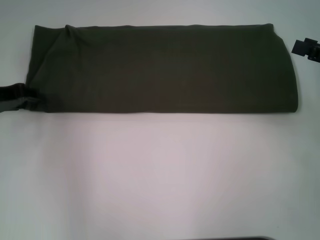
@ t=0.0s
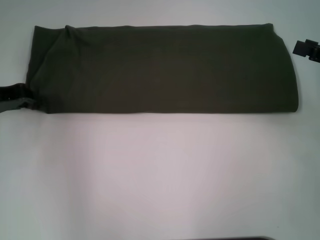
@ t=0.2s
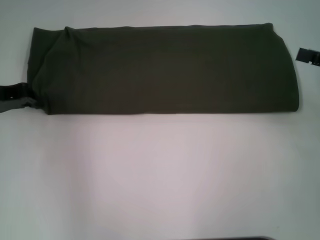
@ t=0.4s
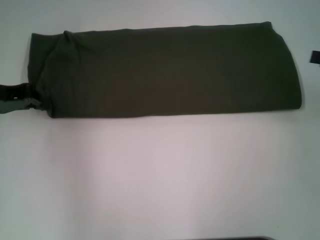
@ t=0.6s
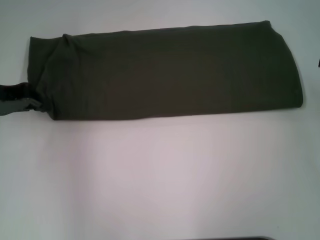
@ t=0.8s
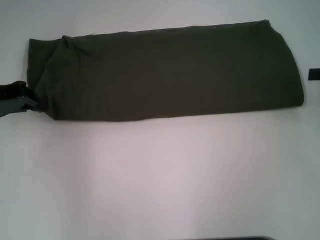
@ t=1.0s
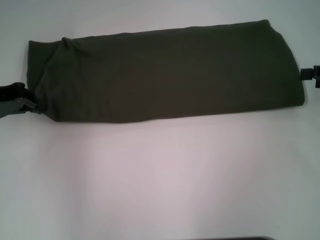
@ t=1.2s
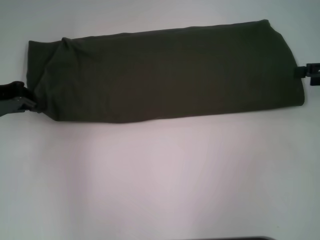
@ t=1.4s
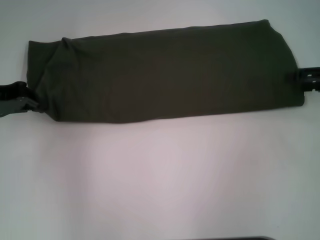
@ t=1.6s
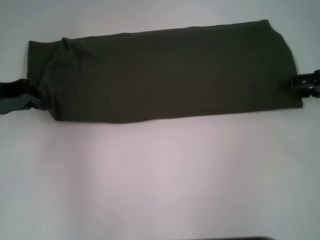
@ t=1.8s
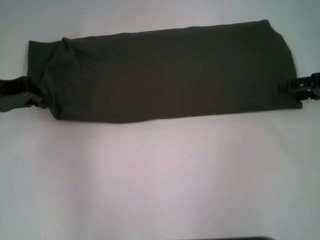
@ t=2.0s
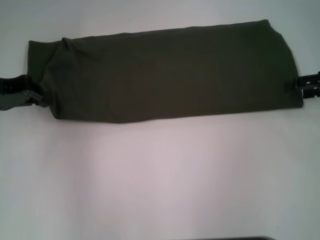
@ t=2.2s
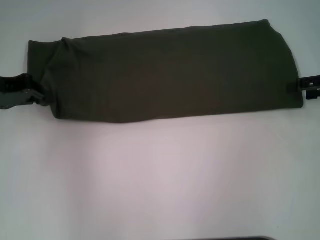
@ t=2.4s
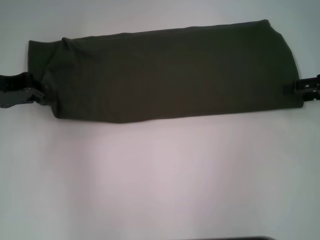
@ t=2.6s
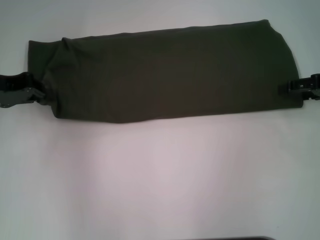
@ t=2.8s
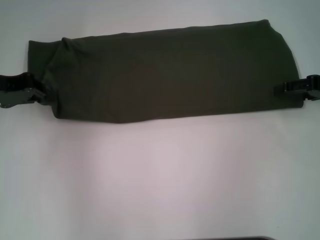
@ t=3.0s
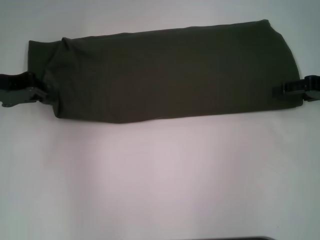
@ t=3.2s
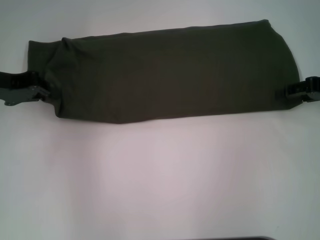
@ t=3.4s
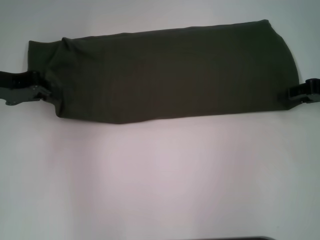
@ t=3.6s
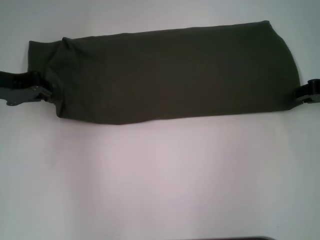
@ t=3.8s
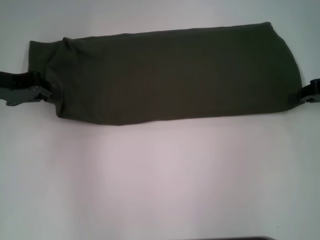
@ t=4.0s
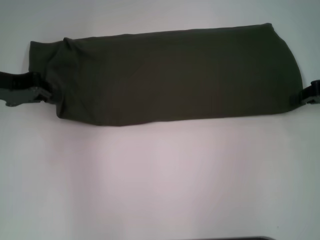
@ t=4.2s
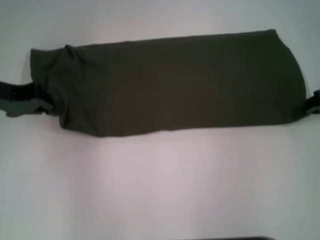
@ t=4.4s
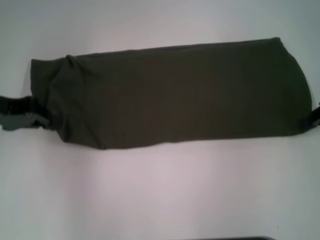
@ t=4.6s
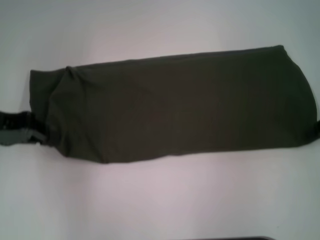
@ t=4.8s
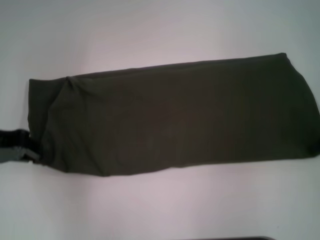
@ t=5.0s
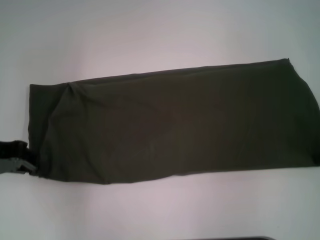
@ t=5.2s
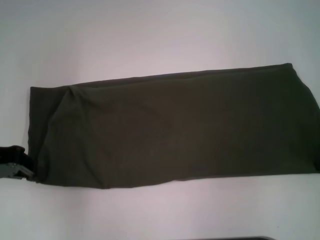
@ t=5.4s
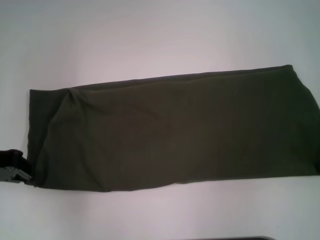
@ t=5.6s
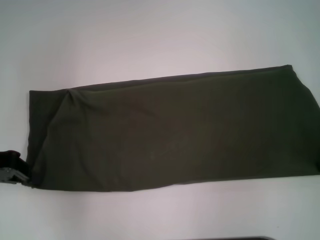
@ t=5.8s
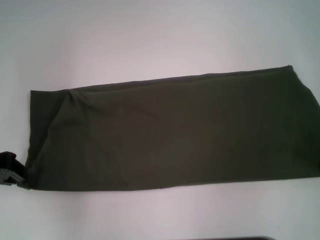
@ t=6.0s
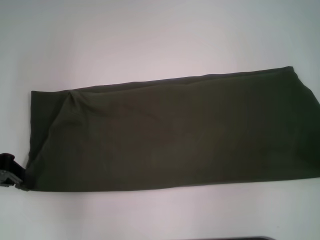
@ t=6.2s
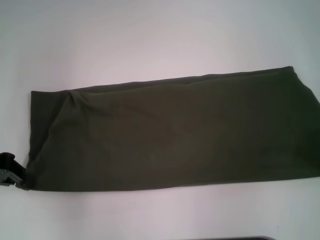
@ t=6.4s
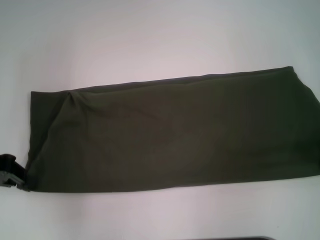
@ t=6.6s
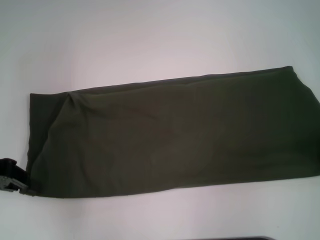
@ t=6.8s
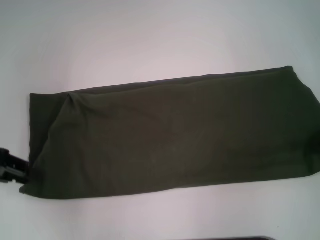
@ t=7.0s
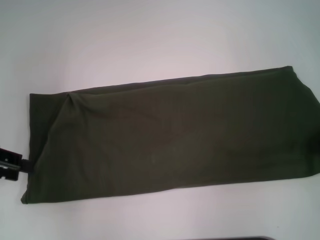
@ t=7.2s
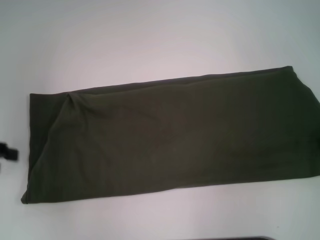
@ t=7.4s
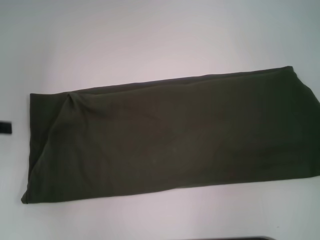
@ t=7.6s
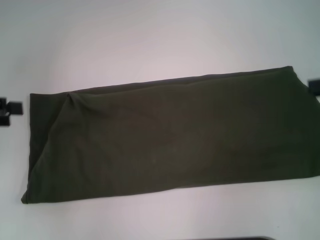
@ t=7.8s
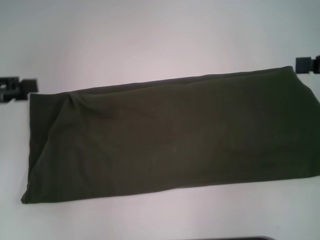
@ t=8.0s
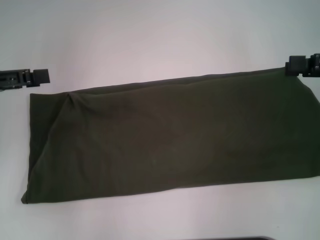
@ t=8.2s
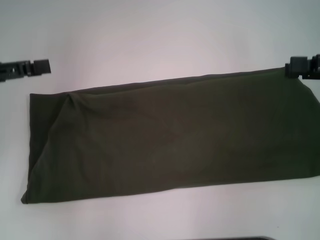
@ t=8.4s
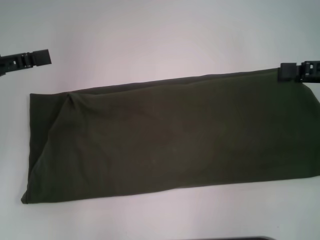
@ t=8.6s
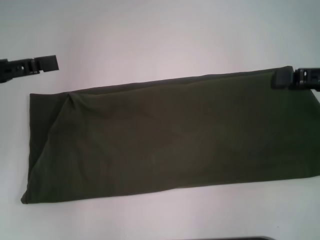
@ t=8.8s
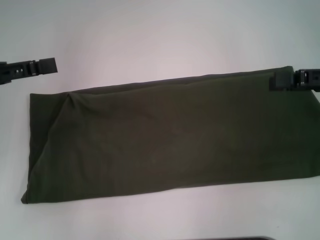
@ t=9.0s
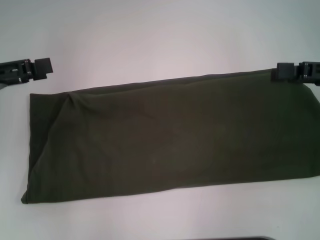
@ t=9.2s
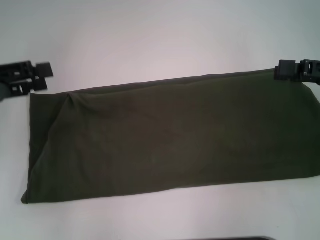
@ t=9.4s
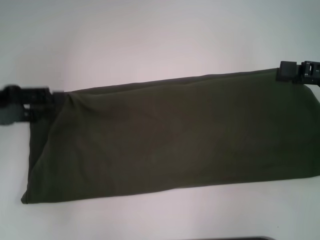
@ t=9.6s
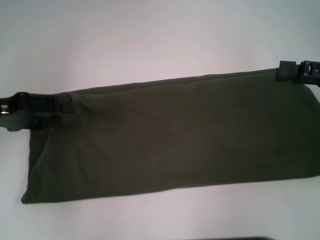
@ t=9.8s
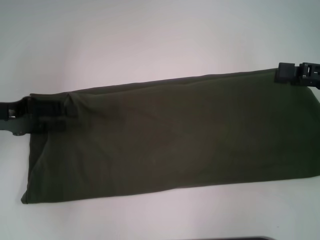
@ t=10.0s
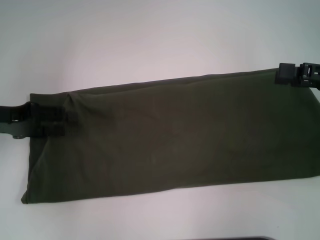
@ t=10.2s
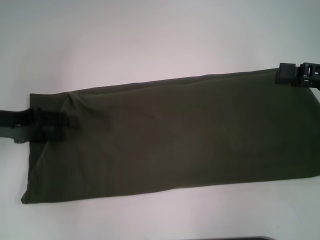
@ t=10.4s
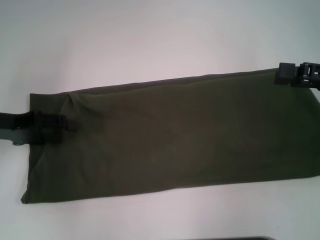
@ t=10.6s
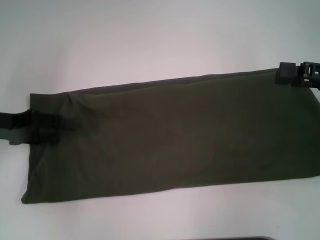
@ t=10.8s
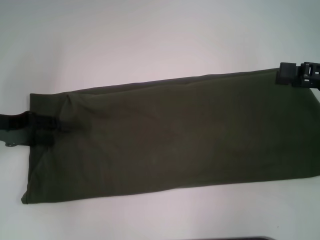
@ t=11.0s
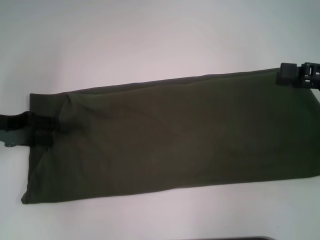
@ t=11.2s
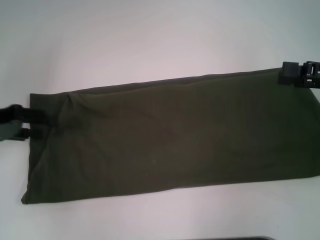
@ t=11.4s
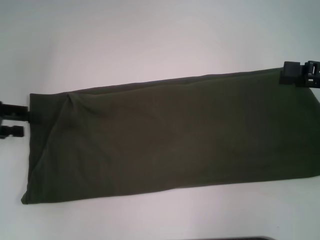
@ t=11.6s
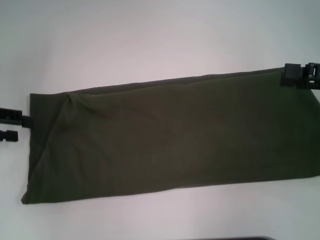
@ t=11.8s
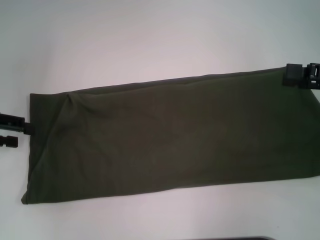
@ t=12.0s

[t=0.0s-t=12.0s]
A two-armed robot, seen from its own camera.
Step, t=0.0s to t=7.0s: Pull the clothes with your left hand.
Step, t=0.0s to t=7.0s: Pull the clothes with your right hand.
t=0.0s to t=1.6s: The right gripper goes some 5 cm forward. Meanwhile the left gripper closes.
t=1.6s to t=3.0s: The grippers make only small movements.
t=3.0s to t=4.4s: The right gripper closes up.
t=4.4s to t=6.0s: The left gripper moves backward, approximately 5 cm.
t=6.0s to t=7.6s: The right gripper moves some 5 cm, and opens up; the left gripper travels to the left by approximately 5 cm, and opens its fingers.
t=7.6s to t=9.0s: The right gripper travels to the left by roughly 5 cm. The left gripper moves some 5 cm.
t=9.0s to t=10.4s: The left gripper shifts about 5 cm downward.
t=10.4s to t=12.0s: The left gripper moves roughly 5 cm.

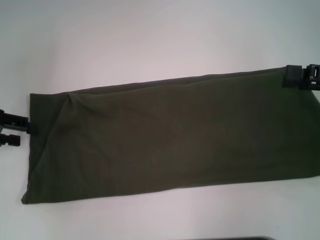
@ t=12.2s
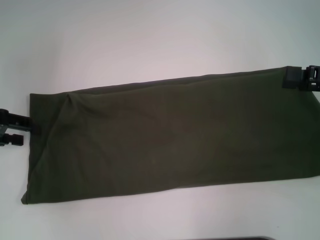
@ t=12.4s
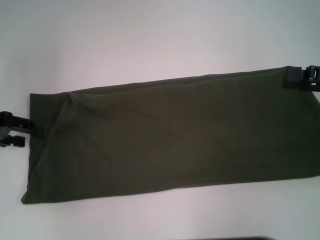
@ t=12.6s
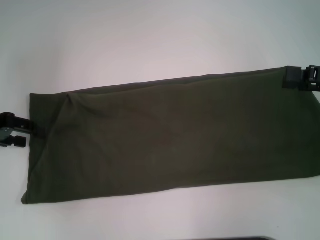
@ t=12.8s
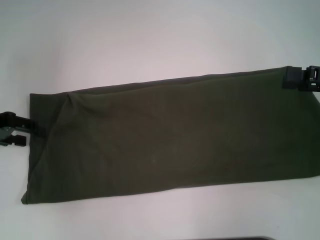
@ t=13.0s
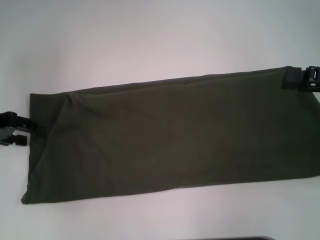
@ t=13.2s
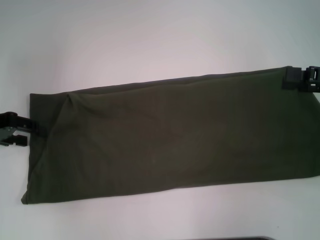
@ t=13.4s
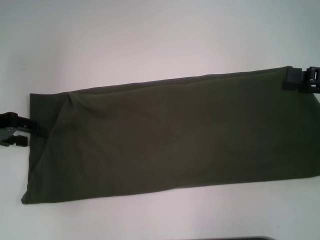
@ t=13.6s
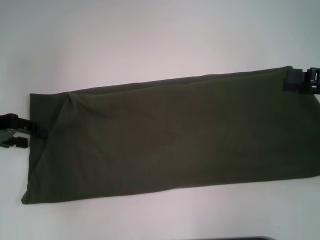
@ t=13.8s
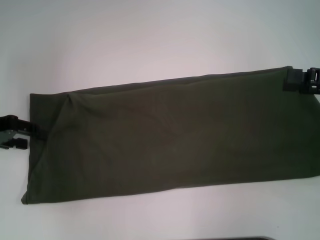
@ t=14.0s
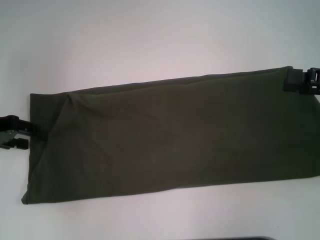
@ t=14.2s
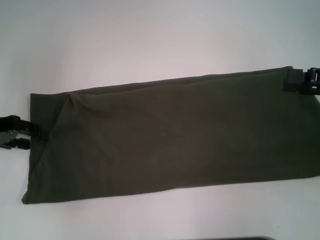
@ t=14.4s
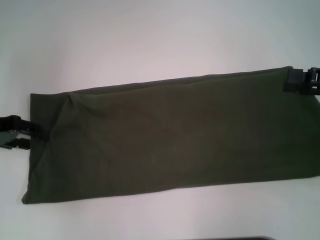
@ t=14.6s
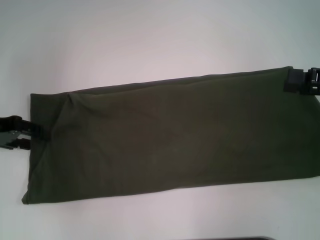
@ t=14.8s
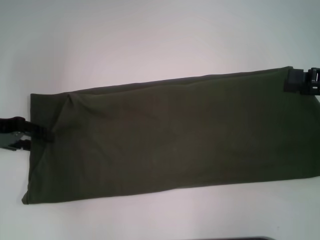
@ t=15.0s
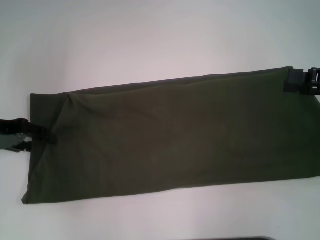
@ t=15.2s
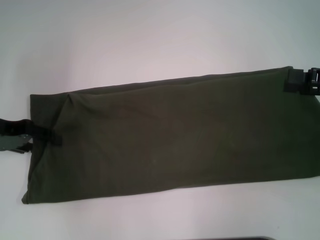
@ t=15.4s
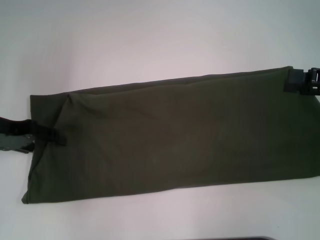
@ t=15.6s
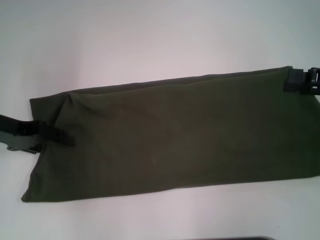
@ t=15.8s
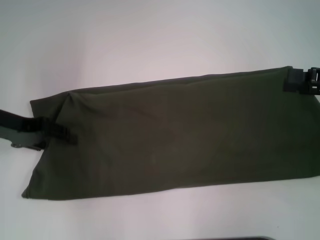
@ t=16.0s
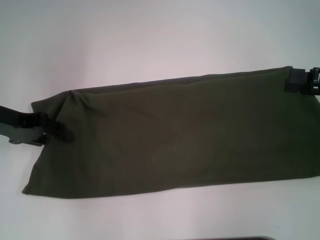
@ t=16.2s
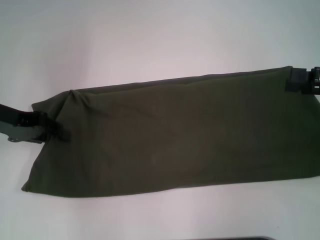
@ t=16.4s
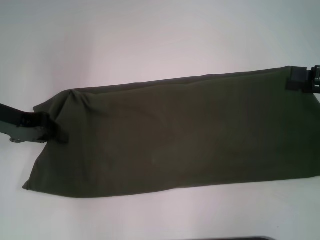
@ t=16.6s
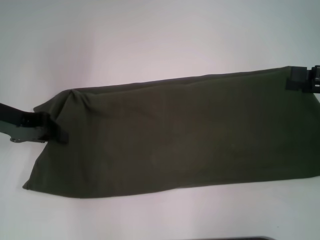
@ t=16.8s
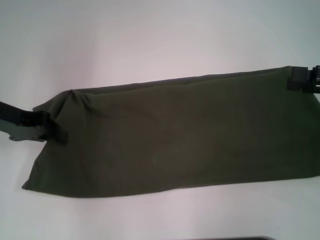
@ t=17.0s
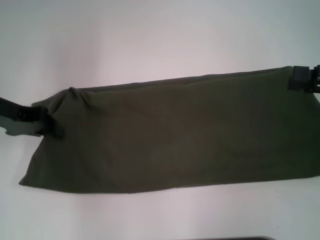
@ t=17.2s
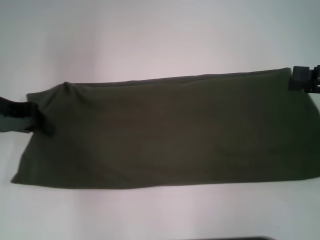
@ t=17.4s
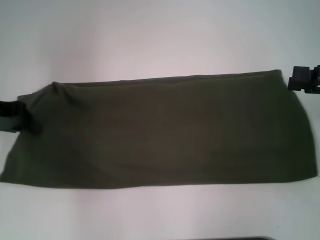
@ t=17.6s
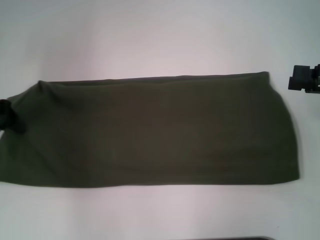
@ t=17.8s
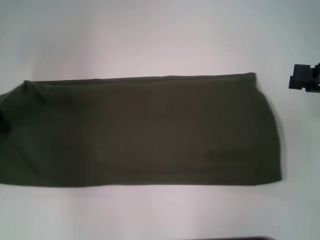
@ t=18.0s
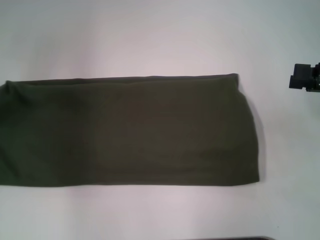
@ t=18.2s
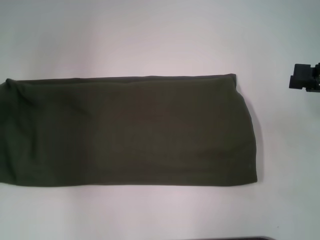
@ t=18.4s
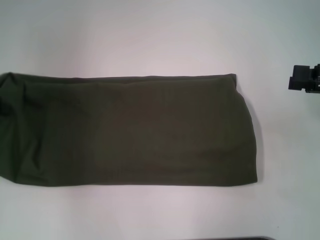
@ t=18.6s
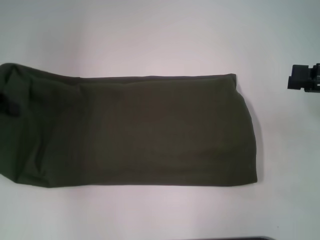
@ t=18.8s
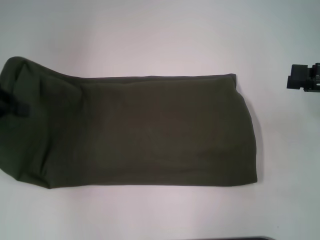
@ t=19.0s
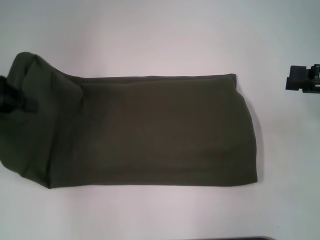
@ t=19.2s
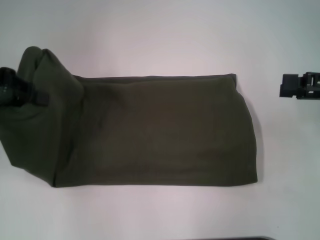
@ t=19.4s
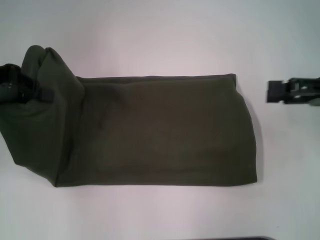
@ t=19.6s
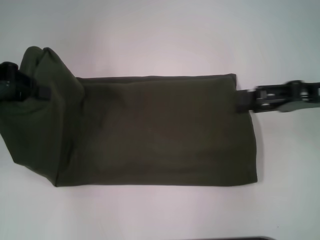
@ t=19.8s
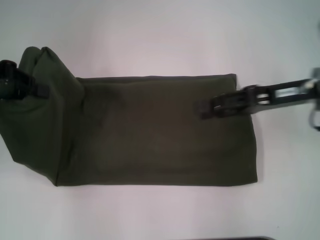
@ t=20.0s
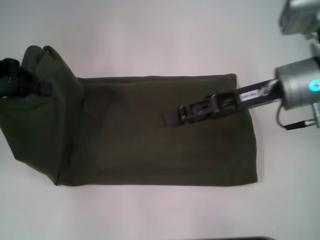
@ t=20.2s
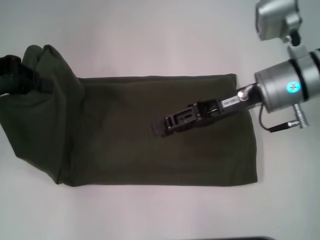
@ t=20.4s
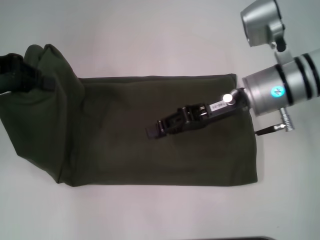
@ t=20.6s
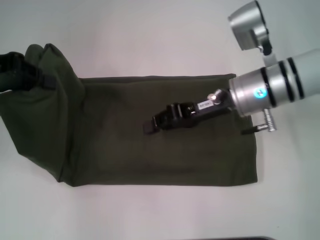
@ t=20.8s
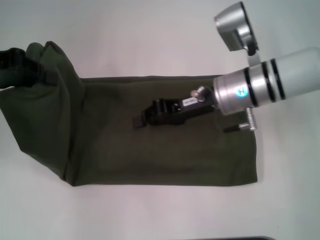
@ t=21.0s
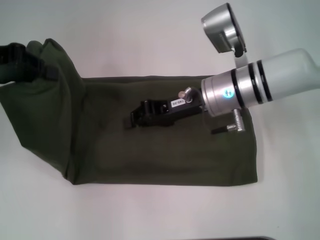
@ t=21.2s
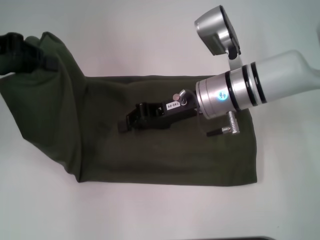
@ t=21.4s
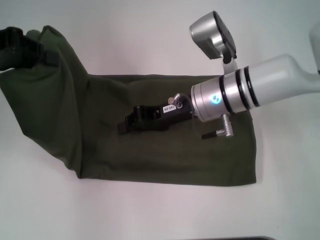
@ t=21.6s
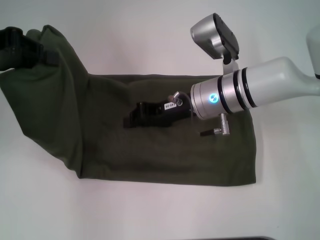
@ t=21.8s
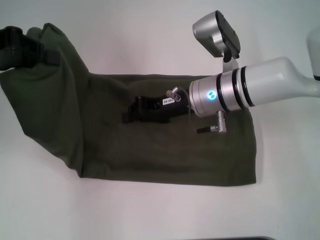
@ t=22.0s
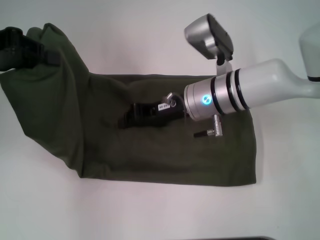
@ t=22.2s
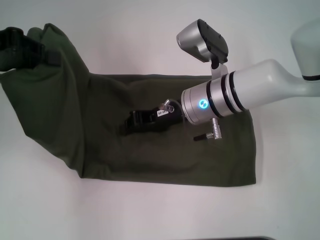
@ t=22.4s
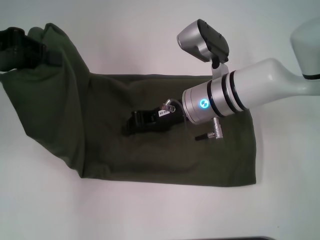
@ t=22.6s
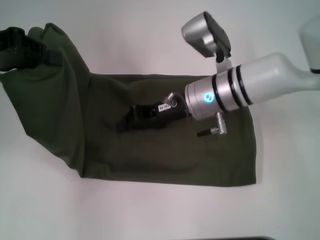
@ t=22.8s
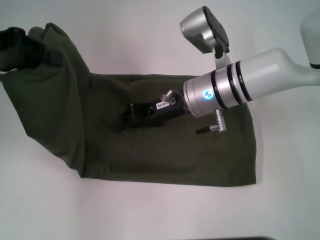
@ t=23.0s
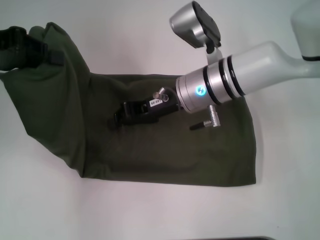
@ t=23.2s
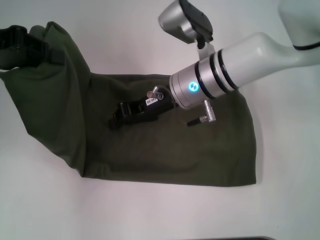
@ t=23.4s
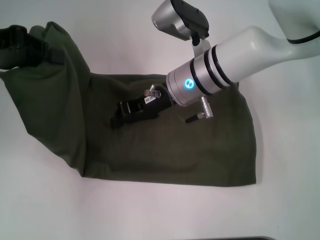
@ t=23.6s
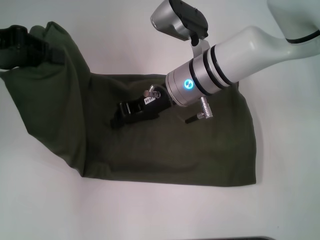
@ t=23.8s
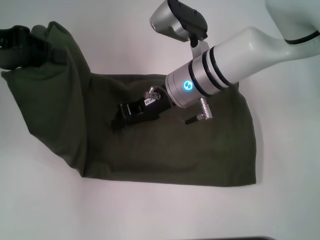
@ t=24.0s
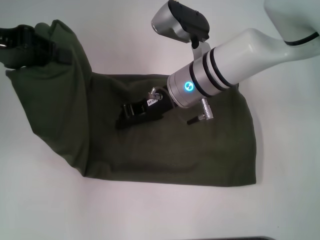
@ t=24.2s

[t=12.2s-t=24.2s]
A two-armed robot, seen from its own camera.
t=12.2s to t=15.2s: The grippers stay close to where they were, moving slightly.
t=15.2s to t=16.6s: The left gripper closes up.
t=16.6s to t=18.2s: The left gripper moves to the left, some 5 cm.
t=18.2s to t=19.8s: The left gripper ends up roughly 5 cm from where it was. The right gripper heads to the left, covering about 5 cm.
t=19.8s to t=21.2s: The right gripper heads to the left, covering about 20 cm, and closes up.
t=21.2s to t=24.2s: There are only small adjustments of the grippers.
